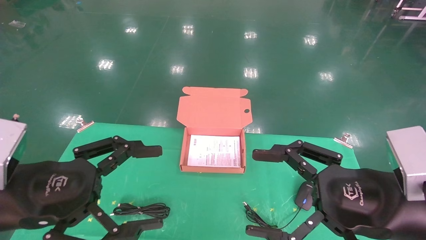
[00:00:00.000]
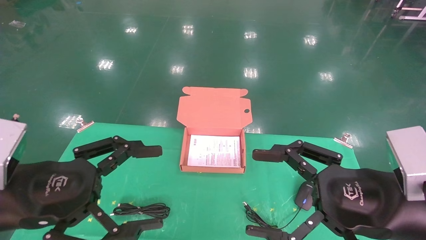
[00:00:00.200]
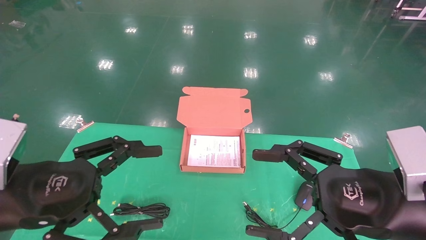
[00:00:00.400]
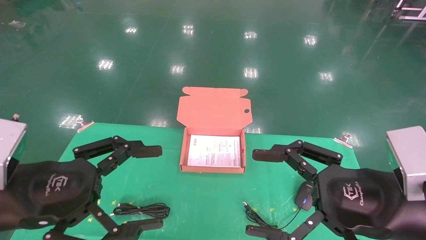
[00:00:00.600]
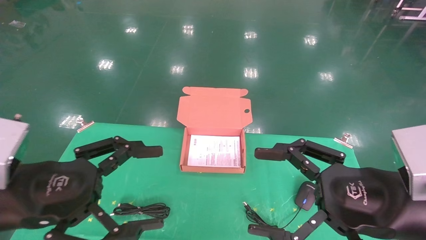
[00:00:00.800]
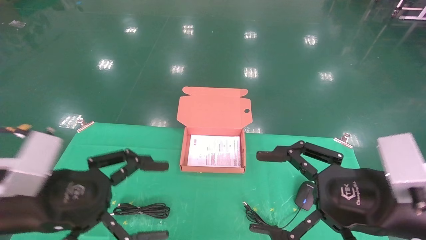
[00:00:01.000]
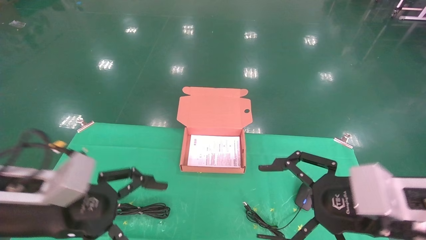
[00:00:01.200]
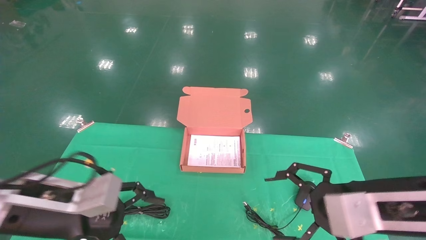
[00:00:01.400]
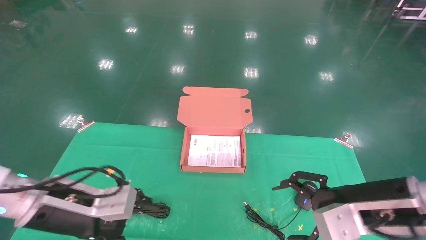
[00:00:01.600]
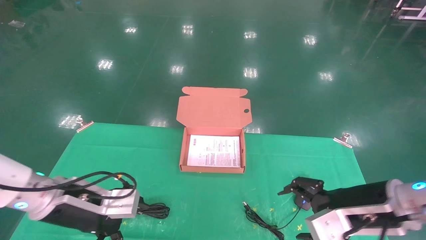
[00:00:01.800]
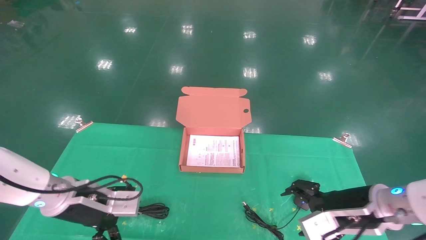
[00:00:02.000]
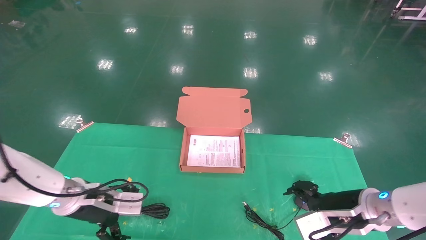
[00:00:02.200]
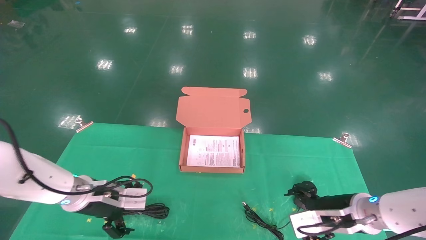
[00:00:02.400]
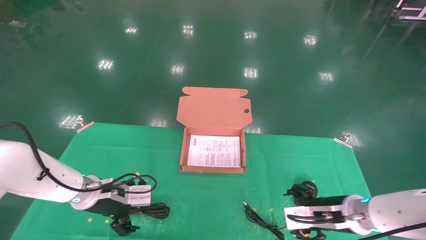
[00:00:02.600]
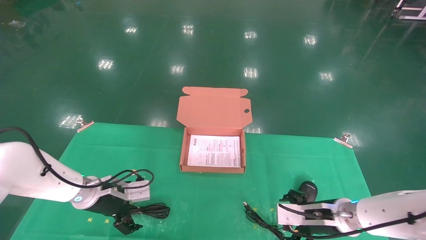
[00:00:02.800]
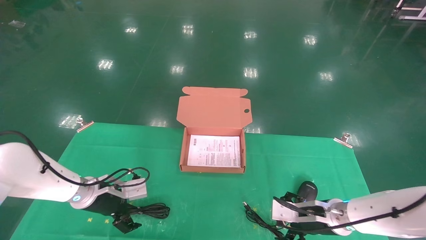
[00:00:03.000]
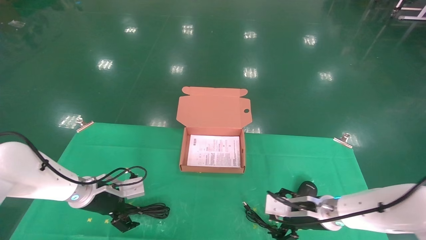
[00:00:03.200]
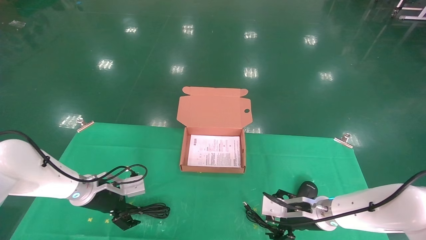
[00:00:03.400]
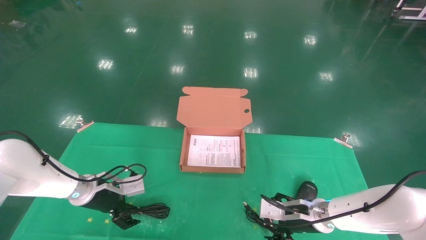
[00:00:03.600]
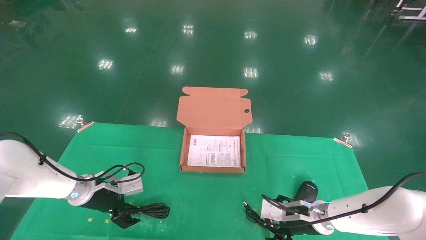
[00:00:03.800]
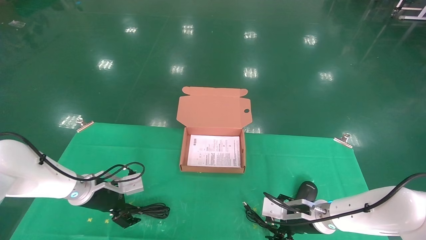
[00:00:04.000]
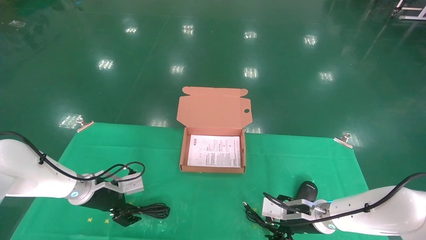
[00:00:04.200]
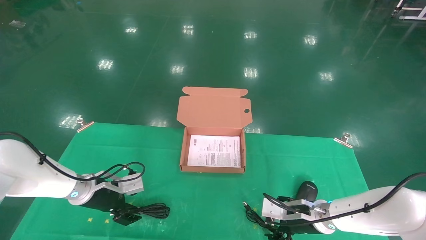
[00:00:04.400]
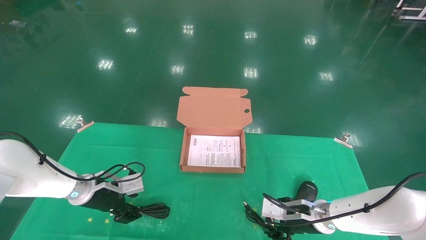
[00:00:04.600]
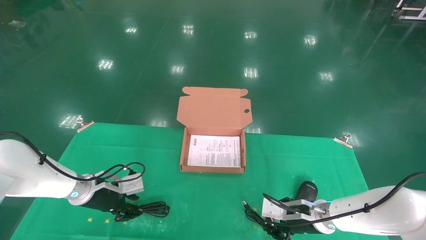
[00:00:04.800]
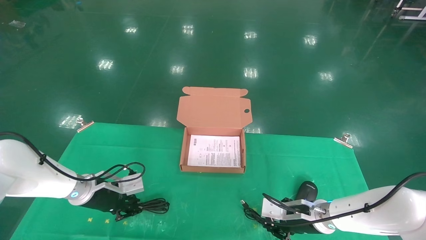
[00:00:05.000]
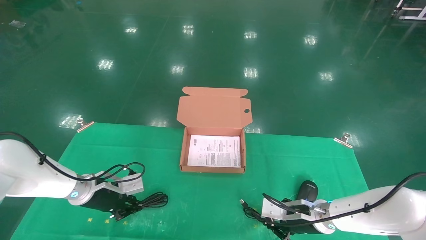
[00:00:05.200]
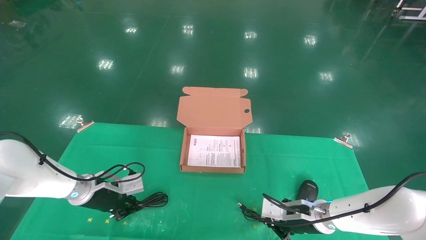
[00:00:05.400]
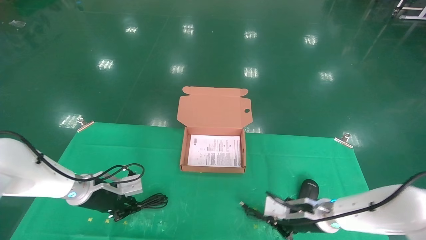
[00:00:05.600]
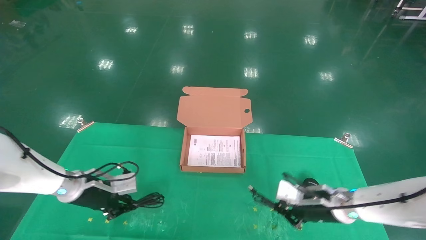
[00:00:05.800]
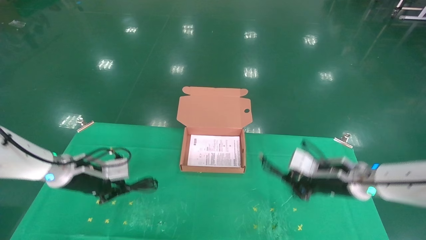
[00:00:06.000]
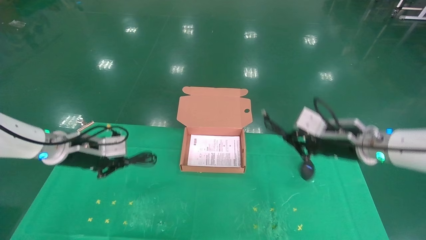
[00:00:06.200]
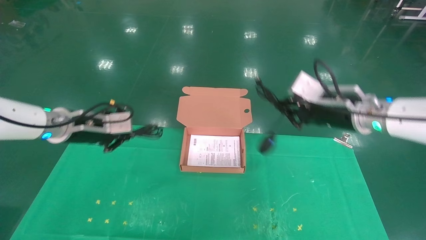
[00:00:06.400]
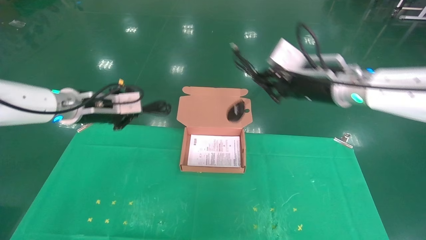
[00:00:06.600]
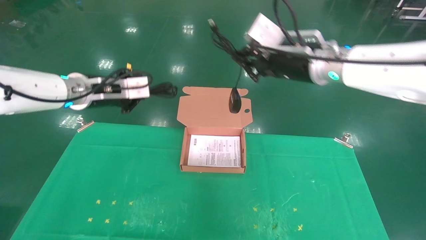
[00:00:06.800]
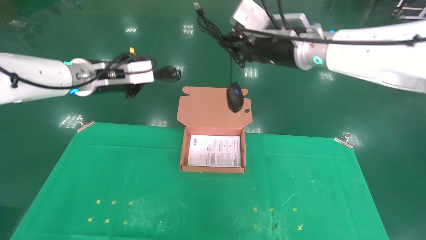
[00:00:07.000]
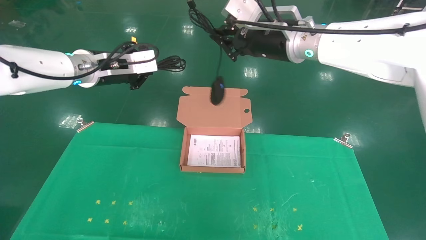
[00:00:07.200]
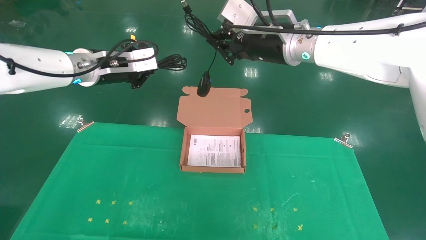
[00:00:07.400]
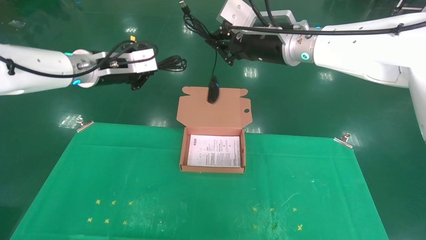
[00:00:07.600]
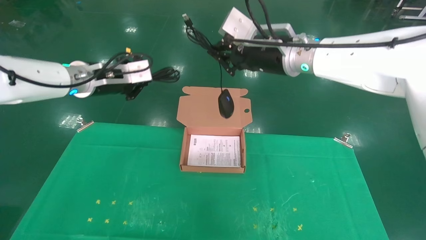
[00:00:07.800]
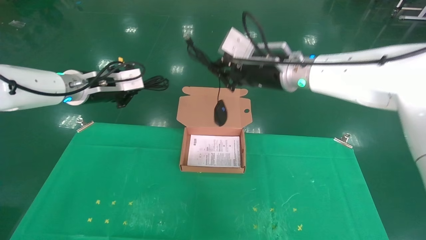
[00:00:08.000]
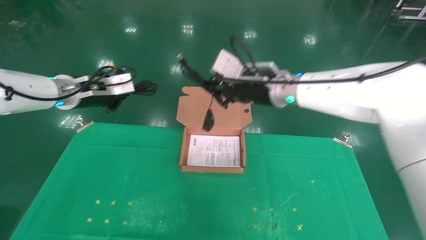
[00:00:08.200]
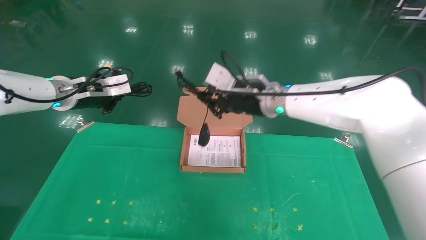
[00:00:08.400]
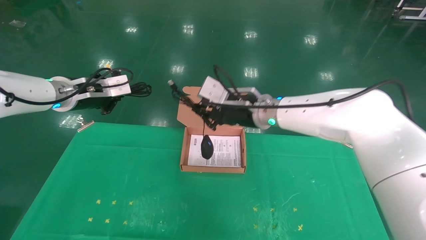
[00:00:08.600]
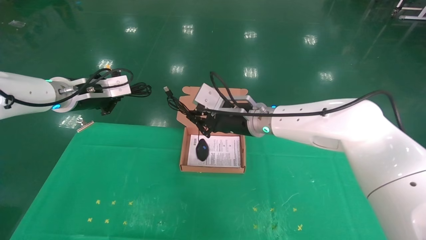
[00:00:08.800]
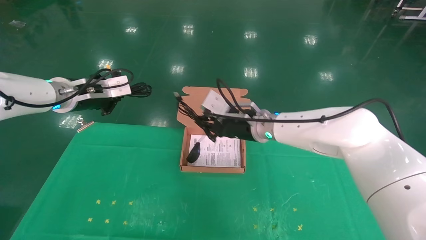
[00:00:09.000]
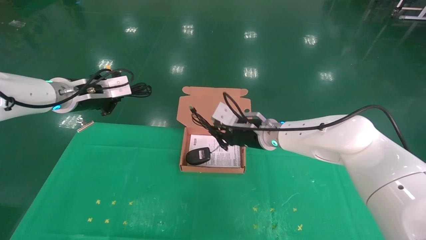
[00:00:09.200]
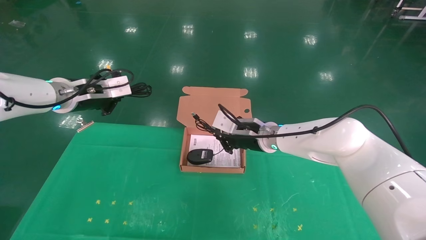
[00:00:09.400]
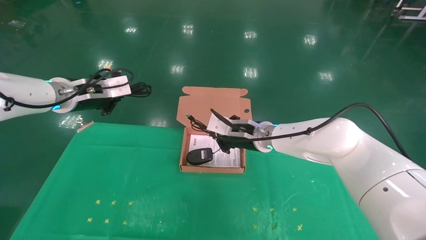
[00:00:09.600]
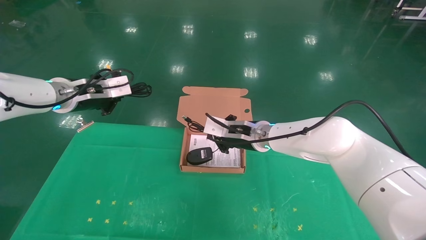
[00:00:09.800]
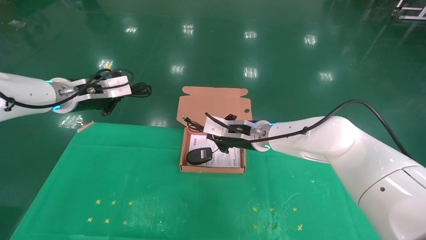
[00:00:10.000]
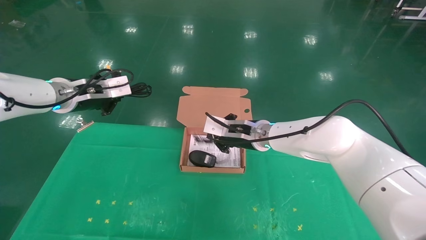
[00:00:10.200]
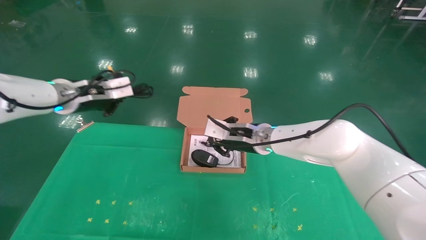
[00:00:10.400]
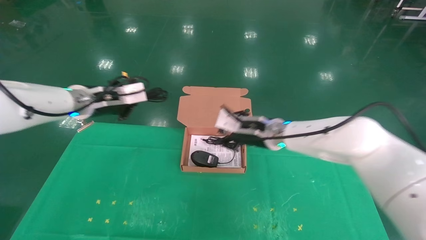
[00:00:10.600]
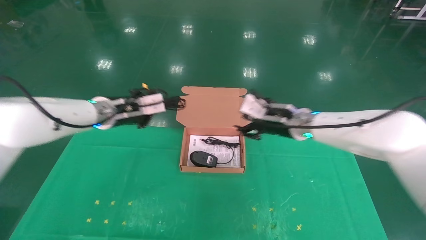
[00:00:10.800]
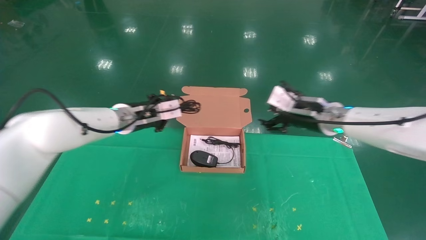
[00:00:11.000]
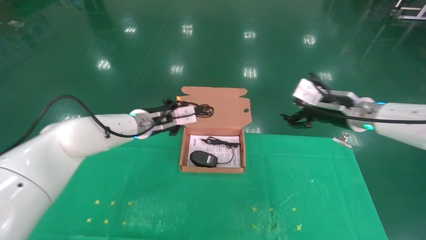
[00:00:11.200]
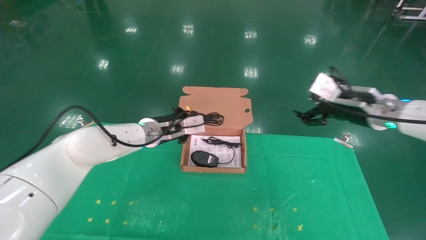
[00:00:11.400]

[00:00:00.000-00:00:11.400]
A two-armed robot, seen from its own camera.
Task of the whole recording: grasp data cable left put into box grasp mouse right put into box.
Step, 00:00:01.000 to 00:00:06.400: Grab and pick up both the mouse and power cord from the accessory packaging area at the same time.
00:00:00.000 to 00:00:01.400: The right gripper moves some 5 cm; the left gripper shifts about 5 cm forward.
00:00:01.400 to 00:00:02.800: The left gripper moves forward and downward, some 20 cm. Meanwhile the right gripper is displaced downward and forward by roughly 20 cm.
00:00:02.800 to 00:00:04.200: The right gripper ends up roughly 5 cm from where it was.
00:00:04.200 to 00:00:05.600: The left gripper closes its fingers; the right gripper closes its fingers.
00:00:05.600 to 00:00:07.200: The two grippers go about 30 cm upward.
00:00:07.200 to 00:00:08.600: The left gripper is displaced to the left by some 5 cm. Meanwhile the right gripper heads downward and to the left, covering approximately 15 cm.
00:00:08.600 to 00:00:10.000: The right gripper moves downward, about 10 cm.
00:00:10.000 to 00:00:11.400: The left gripper travels to the right and downward by approximately 20 cm. Meanwhile the right gripper shifts approximately 20 cm to the right, and opens its fingers.

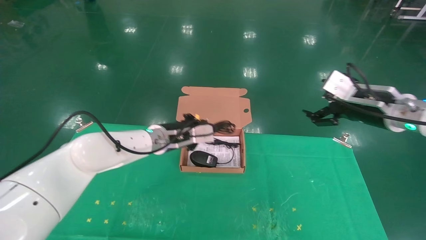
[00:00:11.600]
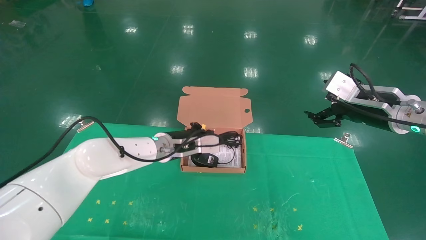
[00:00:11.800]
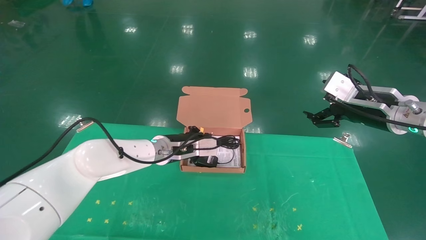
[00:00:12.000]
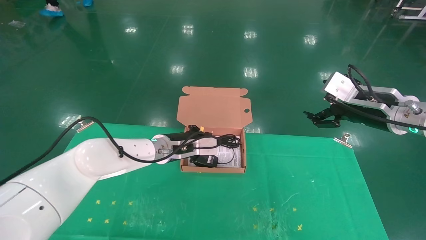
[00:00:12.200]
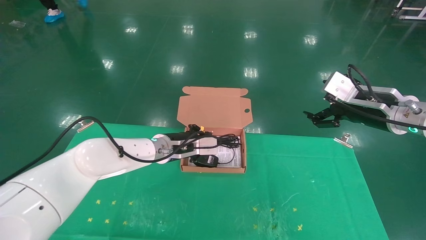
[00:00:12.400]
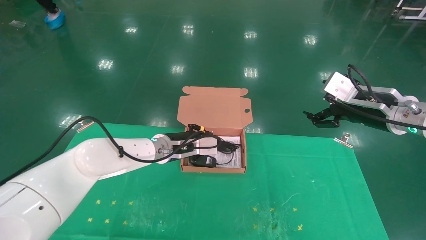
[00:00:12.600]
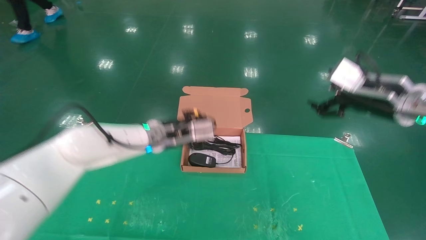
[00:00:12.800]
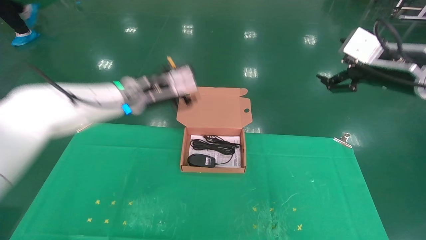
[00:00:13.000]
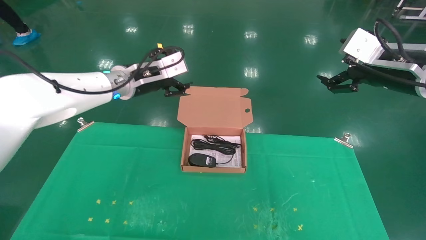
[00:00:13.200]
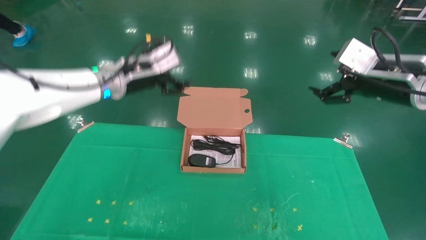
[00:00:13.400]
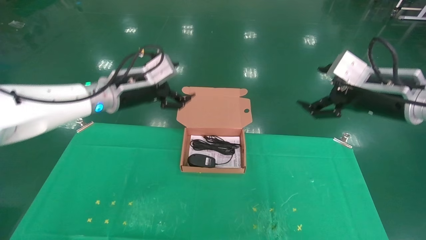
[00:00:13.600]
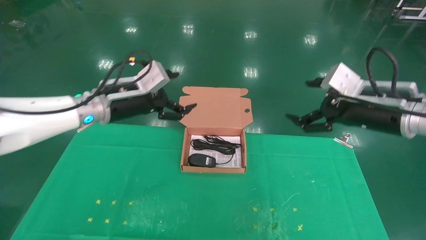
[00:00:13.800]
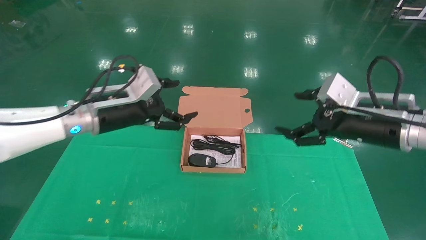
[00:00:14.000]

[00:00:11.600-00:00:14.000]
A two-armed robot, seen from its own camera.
Task of the whole recording: grasp data cable left put into box grasp mouse right put into box.
00:00:11.600 to 00:00:12.800: There are only small adjustments of the grippers.
00:00:12.800 to 00:00:14.000: The right gripper shifts by about 10 cm; the left gripper shifts some 10 cm backward and to the left, and opens its fingers.
